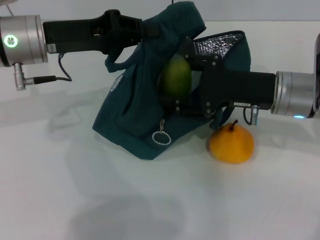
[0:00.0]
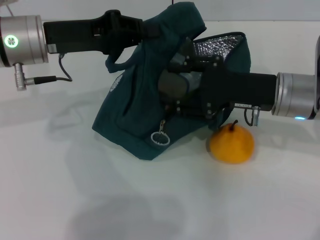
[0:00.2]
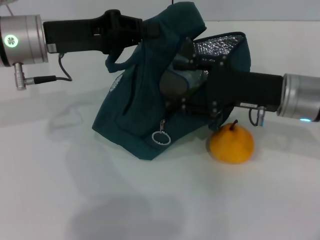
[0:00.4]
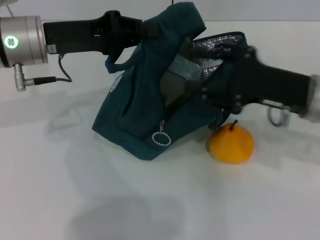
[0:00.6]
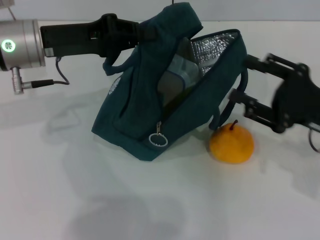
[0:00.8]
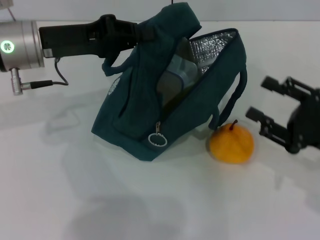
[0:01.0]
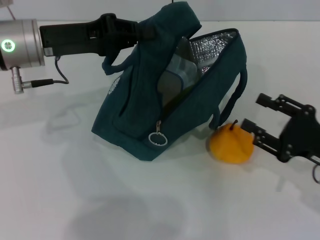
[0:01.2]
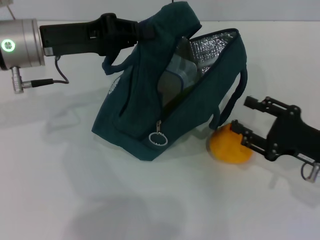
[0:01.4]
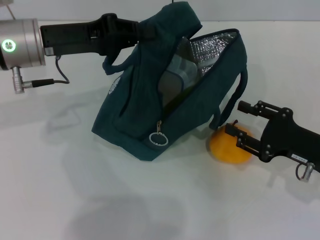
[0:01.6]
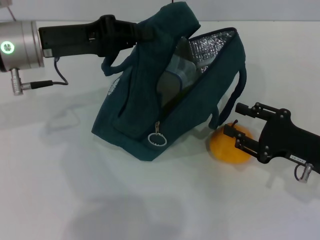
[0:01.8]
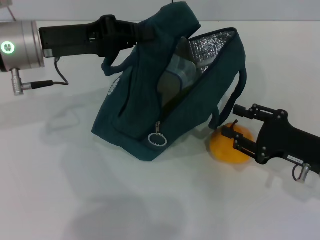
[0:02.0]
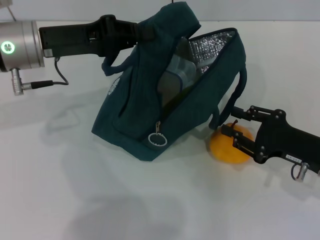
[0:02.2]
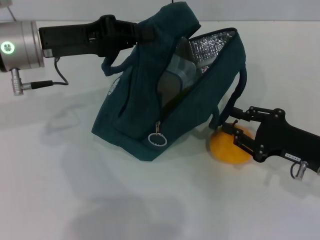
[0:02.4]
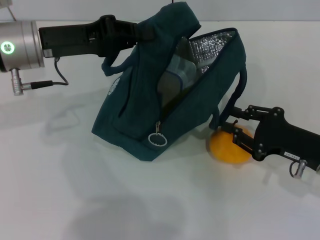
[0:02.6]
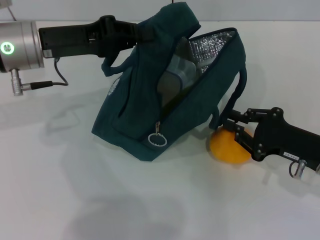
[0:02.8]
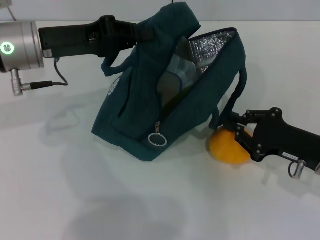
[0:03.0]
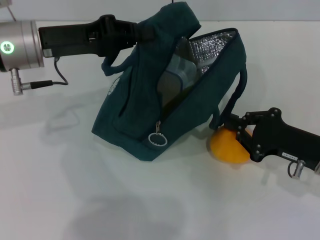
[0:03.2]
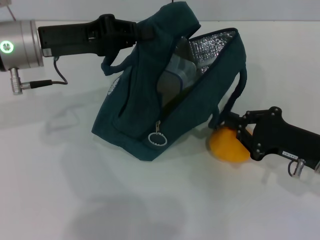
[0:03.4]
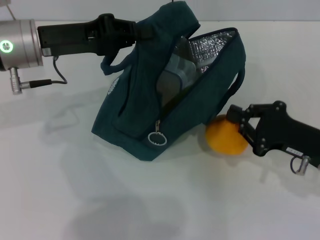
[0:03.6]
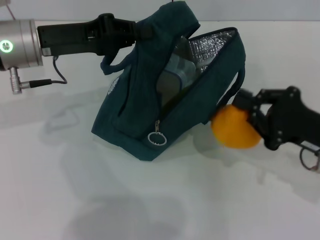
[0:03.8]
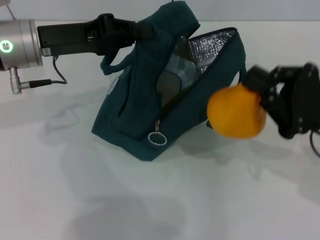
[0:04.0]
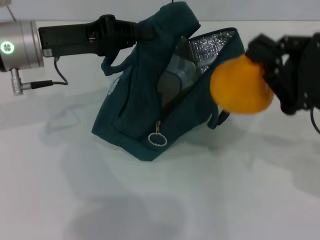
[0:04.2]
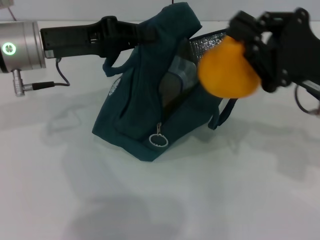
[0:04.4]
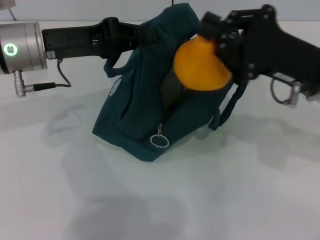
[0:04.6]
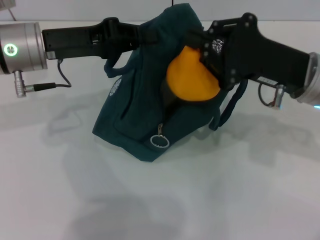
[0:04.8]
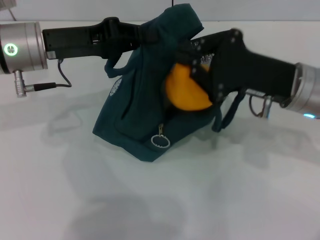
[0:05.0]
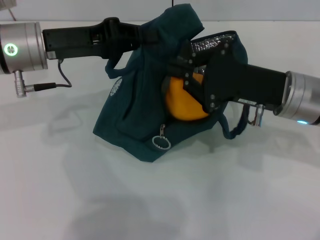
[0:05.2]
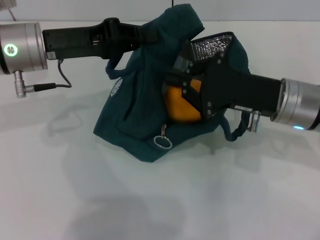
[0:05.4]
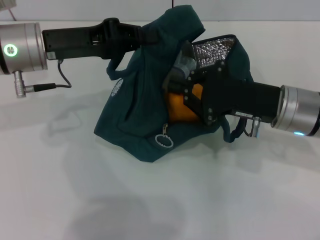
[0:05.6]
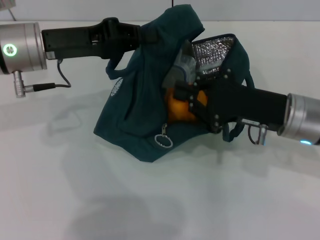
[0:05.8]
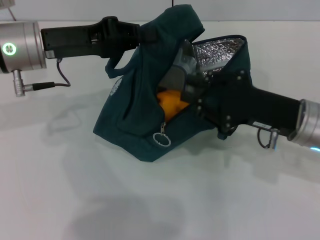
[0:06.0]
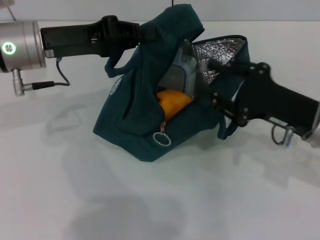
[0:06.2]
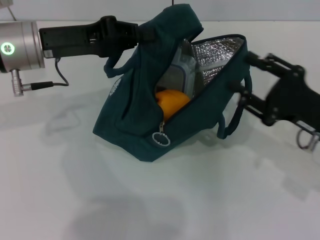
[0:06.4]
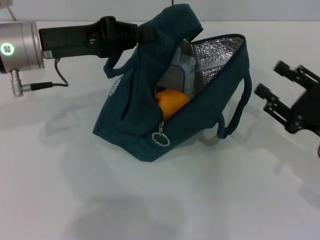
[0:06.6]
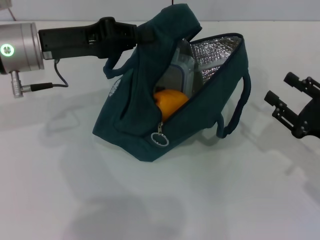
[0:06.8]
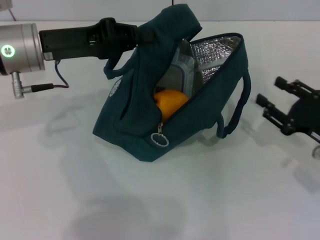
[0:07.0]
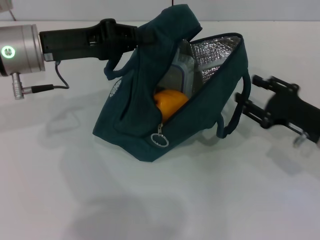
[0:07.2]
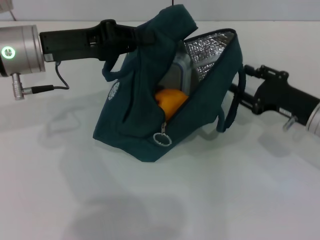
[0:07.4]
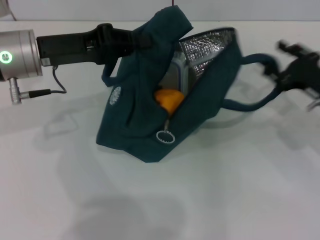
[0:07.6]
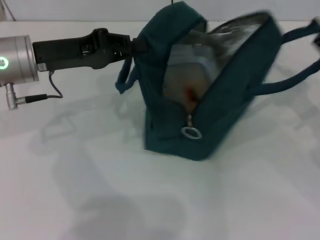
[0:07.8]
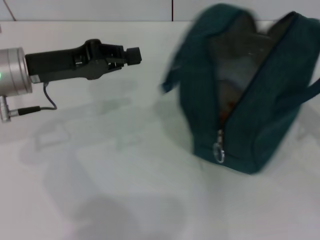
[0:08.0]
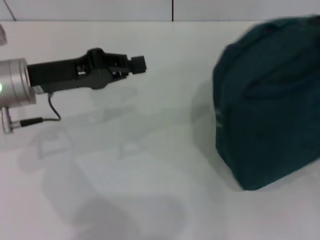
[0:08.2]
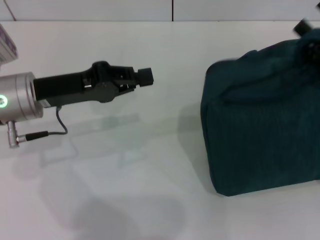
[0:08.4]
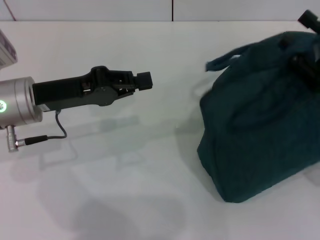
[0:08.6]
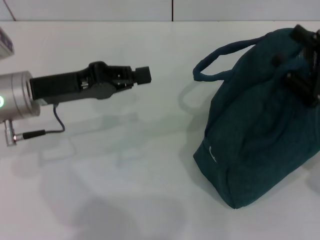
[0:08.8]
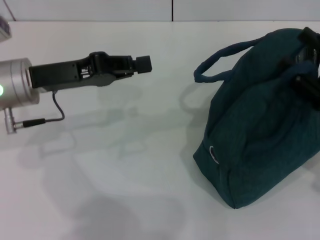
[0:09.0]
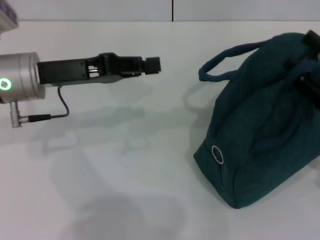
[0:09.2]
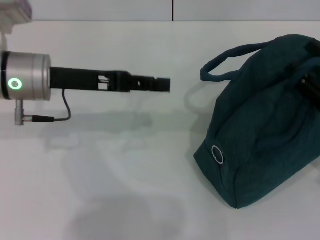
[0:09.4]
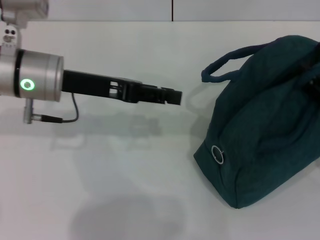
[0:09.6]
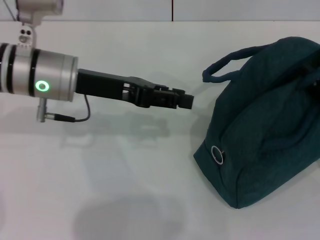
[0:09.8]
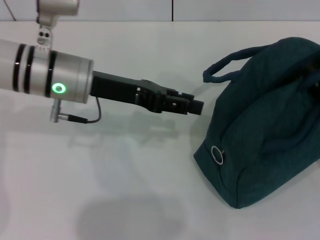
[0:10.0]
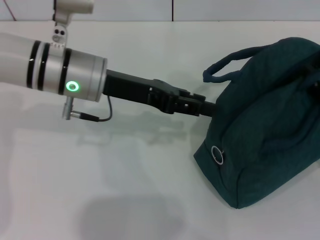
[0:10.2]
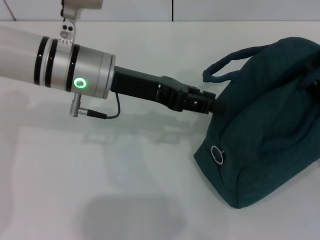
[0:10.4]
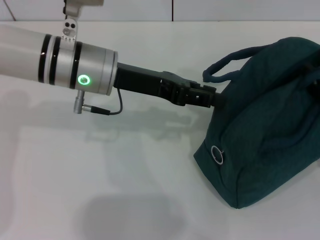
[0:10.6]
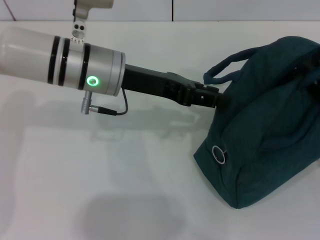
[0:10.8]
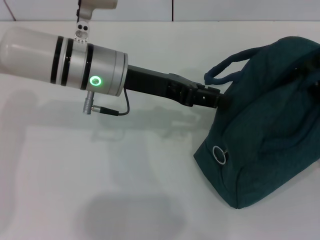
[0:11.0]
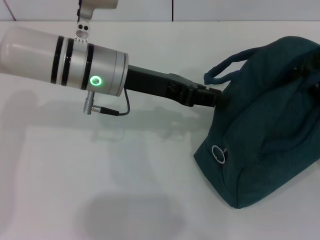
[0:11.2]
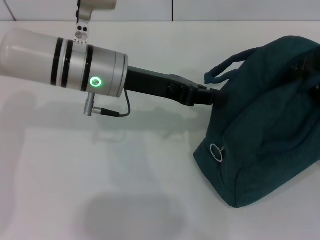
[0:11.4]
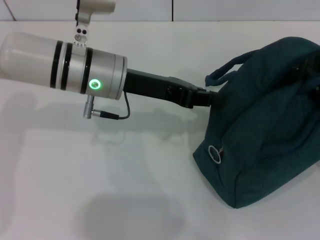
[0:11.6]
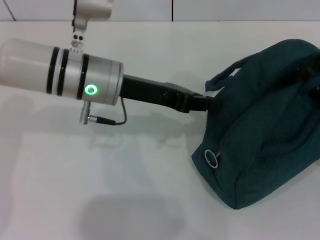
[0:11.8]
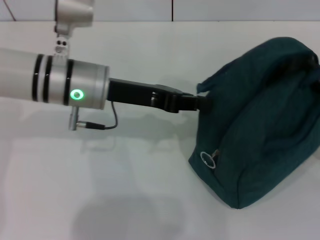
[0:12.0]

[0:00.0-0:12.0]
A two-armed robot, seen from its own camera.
Step, 0:00.6 to 0:03.2: Grab the pear with your right hand.
0:00.0 to 0:01.6: The right gripper travels to the right, downward and backward by approximately 15 cm.
0:01.6 to 0:03.0: The right gripper closes up.
0:03.0 to 0:04.4: The right gripper is displaced upward by roughly 10 cm.
0:04.4 to 0:06.0: The right gripper goes about 5 cm downward.
0:06.0 to 0:07.6: The right gripper is displaced to the right by approximately 10 cm, and opens.
0:07.6 to 0:09.0: The right gripper travels backward by some 5 cm.
0:09.0 to 0:10.4: The left gripper shifts approximately 10 cm to the right, and opens up.
0:10.4 to 0:12.0: The left gripper closes.

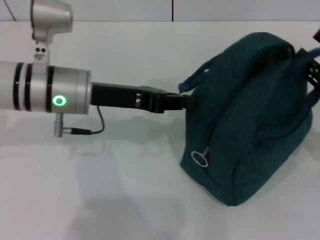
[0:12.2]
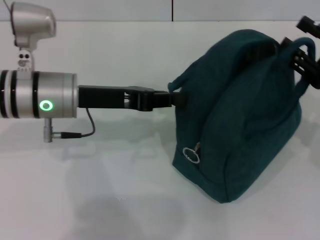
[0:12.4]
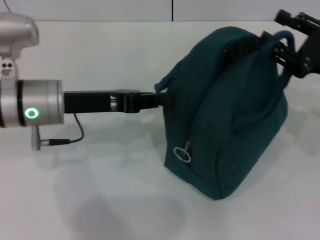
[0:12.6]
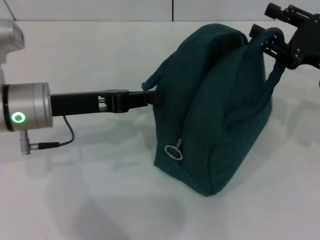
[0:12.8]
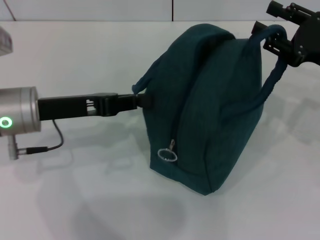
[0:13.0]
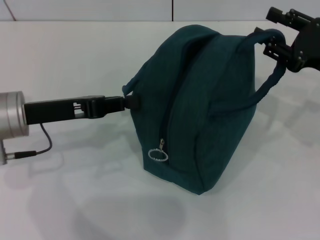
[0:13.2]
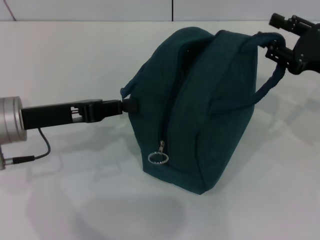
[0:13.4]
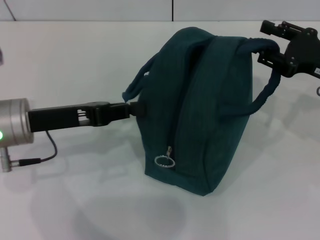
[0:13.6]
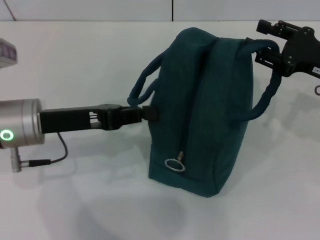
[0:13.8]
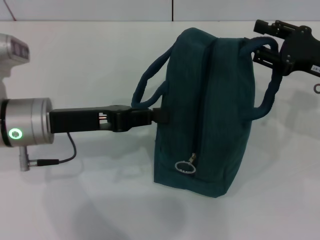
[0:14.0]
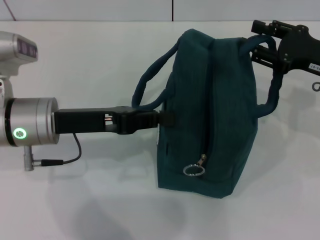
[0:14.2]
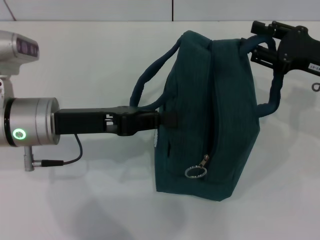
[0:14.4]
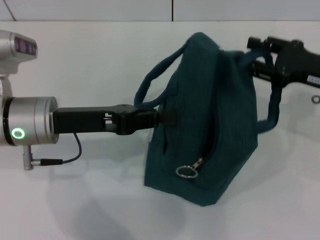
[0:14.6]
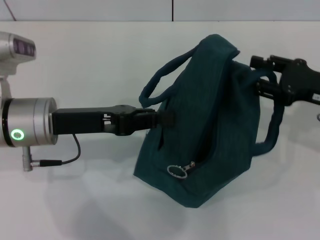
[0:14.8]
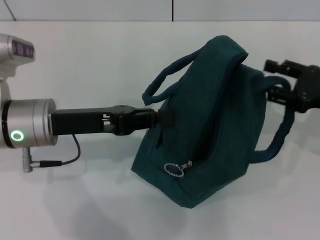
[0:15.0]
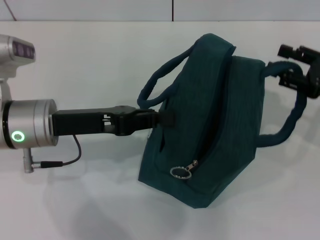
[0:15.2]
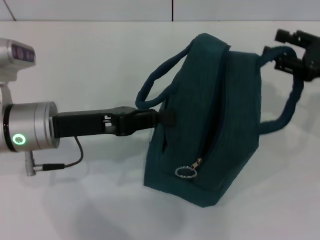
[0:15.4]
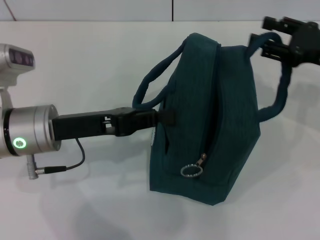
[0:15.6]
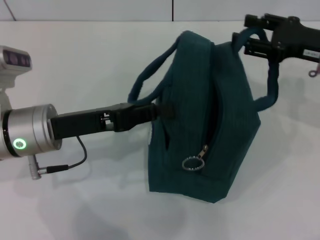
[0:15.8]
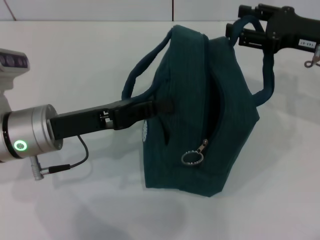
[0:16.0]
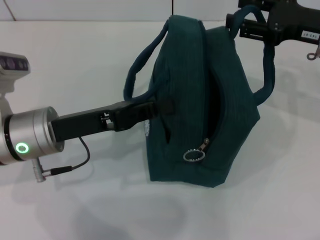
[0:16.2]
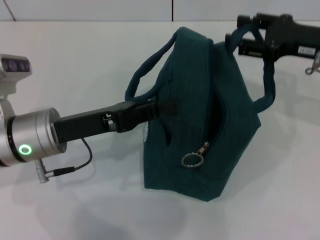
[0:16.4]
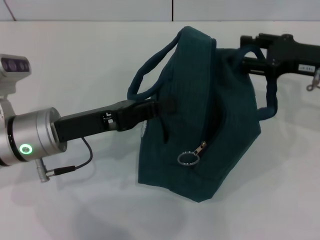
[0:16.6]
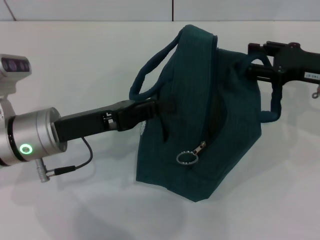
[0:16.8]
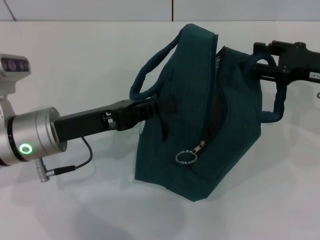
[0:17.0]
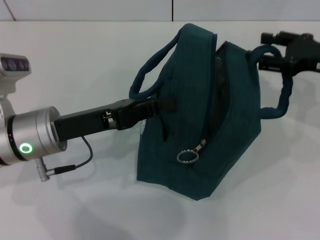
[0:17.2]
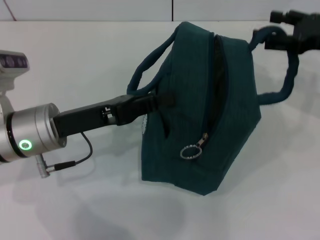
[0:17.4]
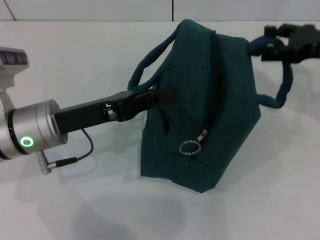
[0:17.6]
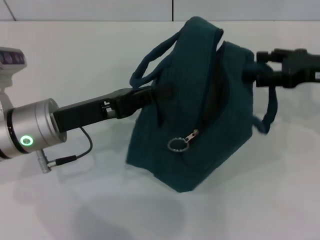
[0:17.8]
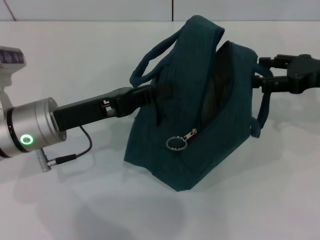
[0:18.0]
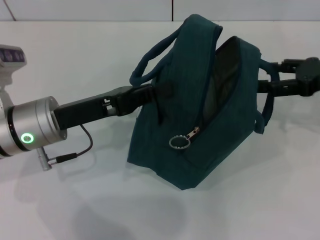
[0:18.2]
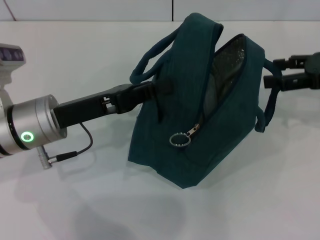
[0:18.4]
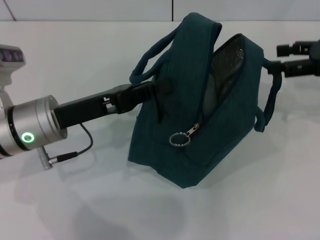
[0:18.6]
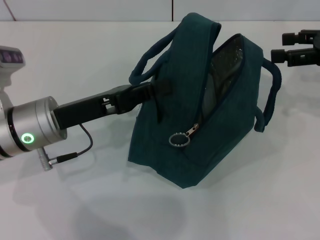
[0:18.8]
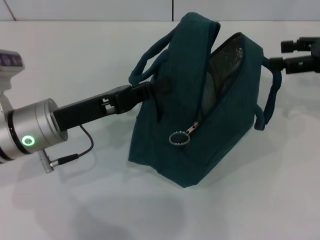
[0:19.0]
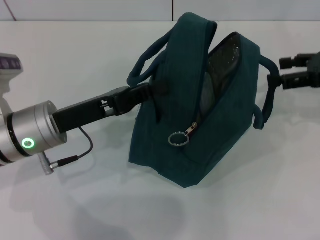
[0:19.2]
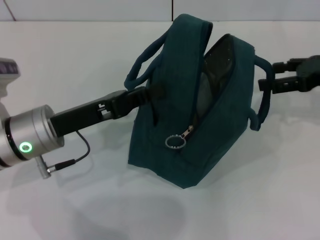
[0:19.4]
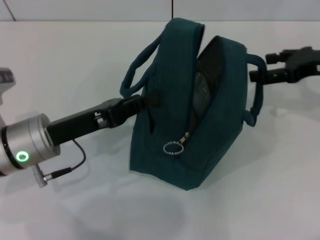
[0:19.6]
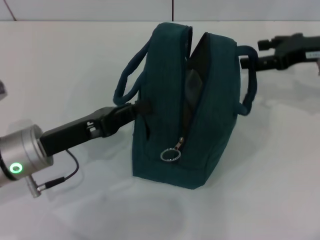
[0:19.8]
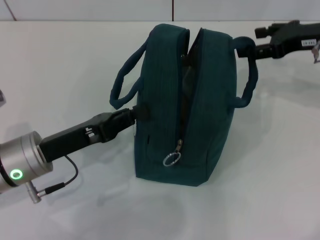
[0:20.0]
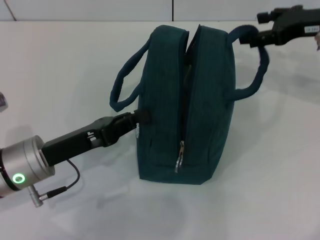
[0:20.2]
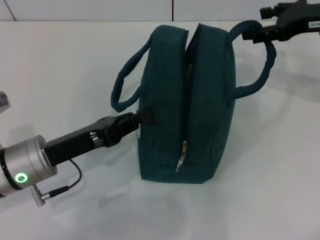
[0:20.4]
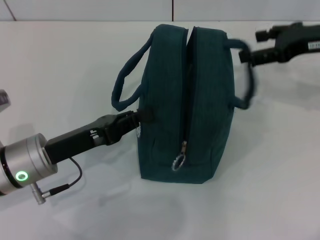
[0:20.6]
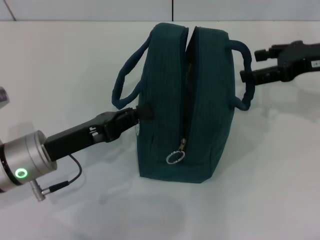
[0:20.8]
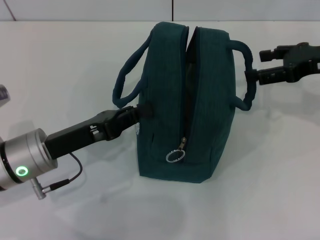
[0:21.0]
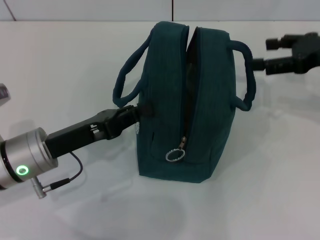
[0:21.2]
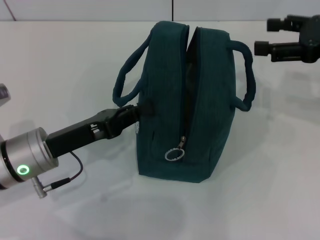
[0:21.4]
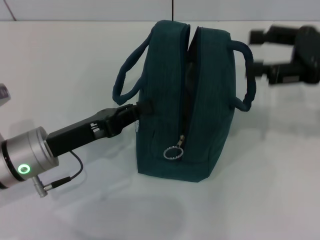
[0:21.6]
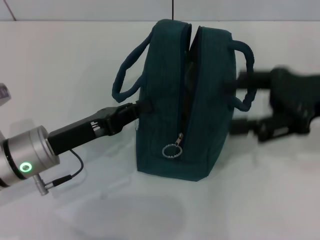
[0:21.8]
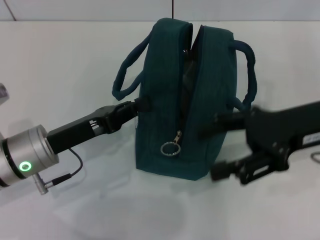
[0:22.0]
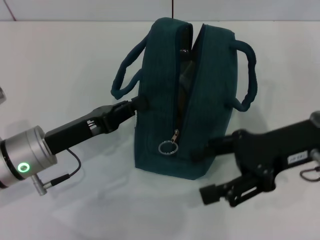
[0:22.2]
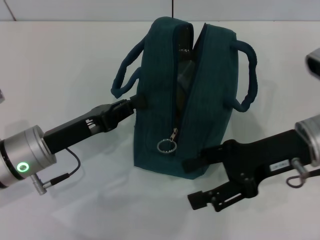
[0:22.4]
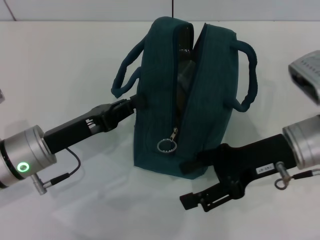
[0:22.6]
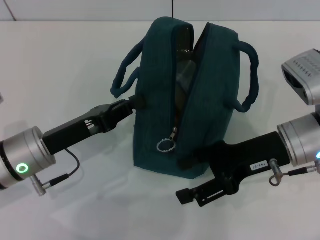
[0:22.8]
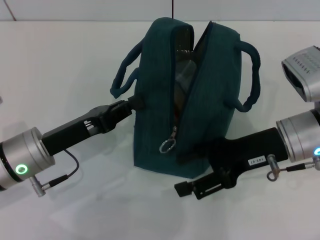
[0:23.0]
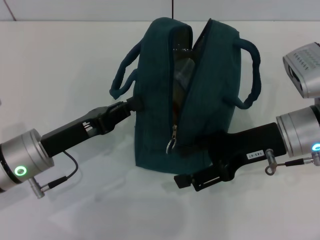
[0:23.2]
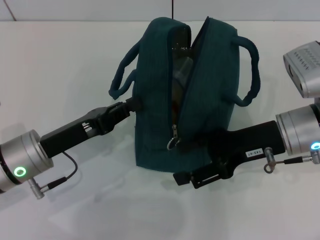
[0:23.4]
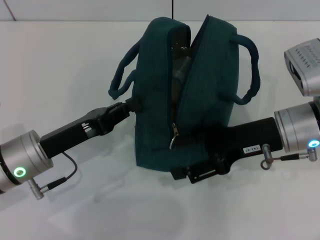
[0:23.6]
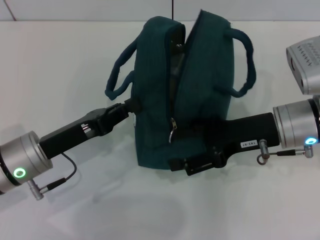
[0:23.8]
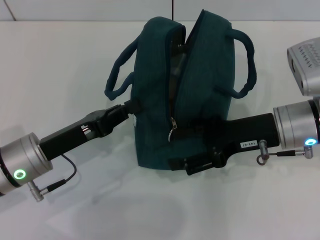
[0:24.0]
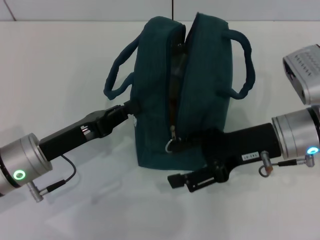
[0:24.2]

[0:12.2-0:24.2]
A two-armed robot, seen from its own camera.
Step, 0:12.2 to 0:21.0: Hold the lunch bag with your right hand.
0:12.2 to 0:13.8: The right gripper is displaced forward by approximately 5 cm. The left gripper goes some 5 cm to the left.
0:15.2 to 0:16.6: The right gripper heads forward, covering approximately 5 cm.
0:18.2 to 0:19.8: The right gripper changes place by about 5 cm.
0:19.8 to 0:21.2: The grippers make only small movements.
0:21.2 to 0:22.6: The right gripper moves to the left, backward and downward, about 15 cm.
